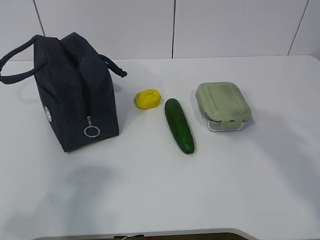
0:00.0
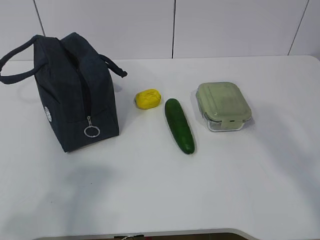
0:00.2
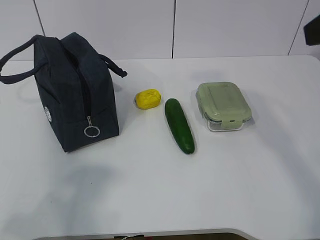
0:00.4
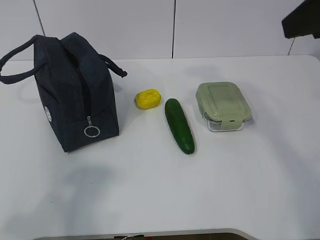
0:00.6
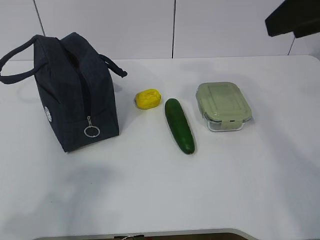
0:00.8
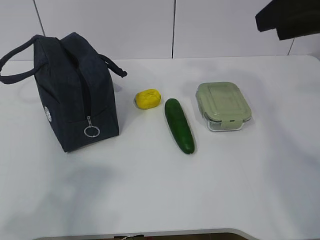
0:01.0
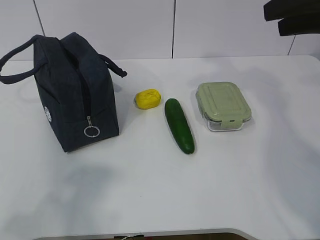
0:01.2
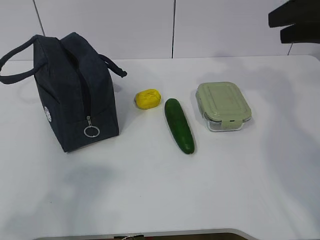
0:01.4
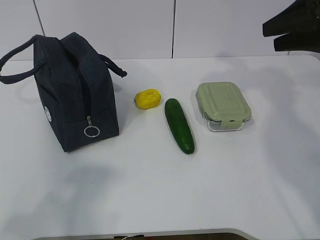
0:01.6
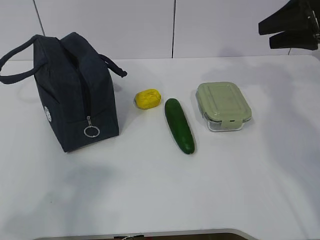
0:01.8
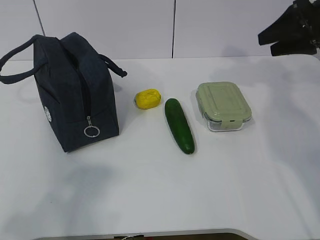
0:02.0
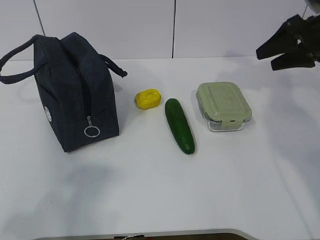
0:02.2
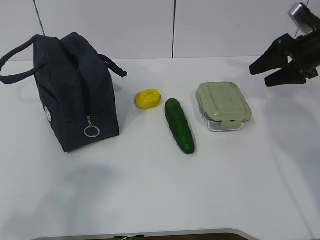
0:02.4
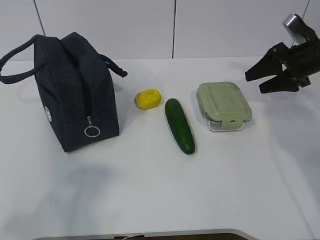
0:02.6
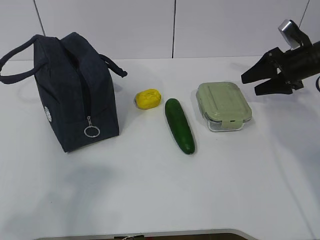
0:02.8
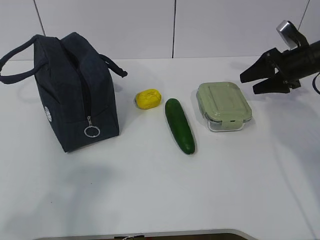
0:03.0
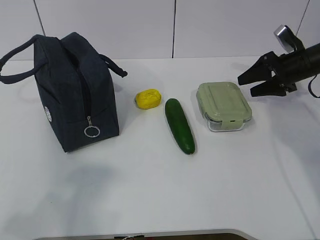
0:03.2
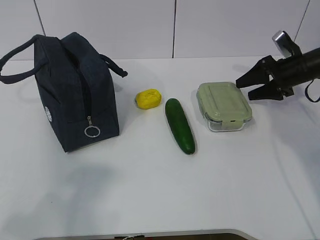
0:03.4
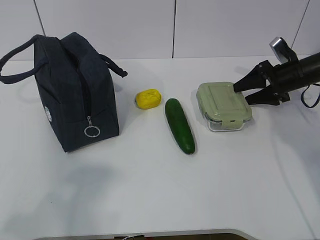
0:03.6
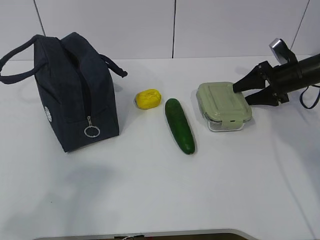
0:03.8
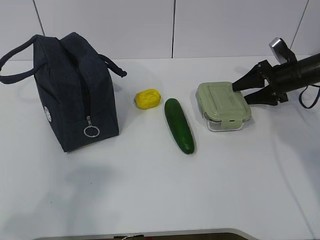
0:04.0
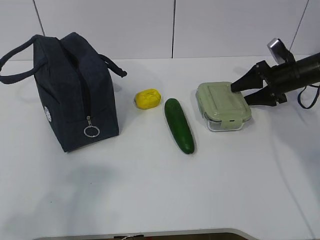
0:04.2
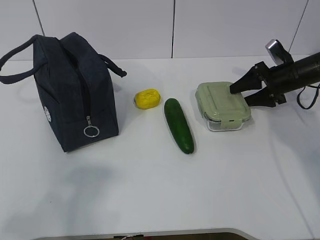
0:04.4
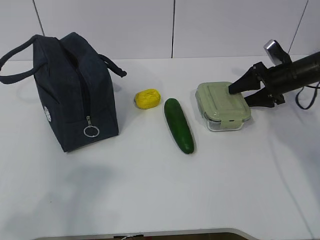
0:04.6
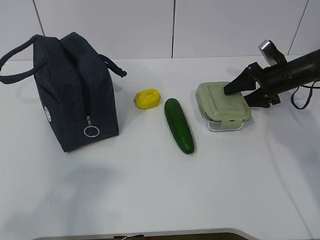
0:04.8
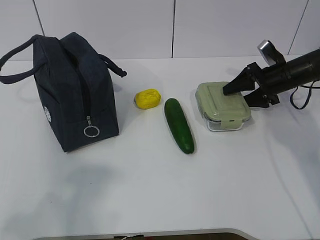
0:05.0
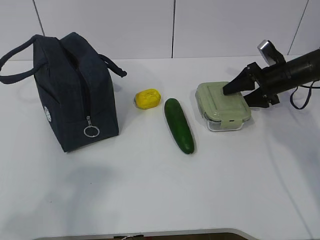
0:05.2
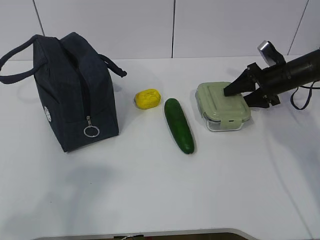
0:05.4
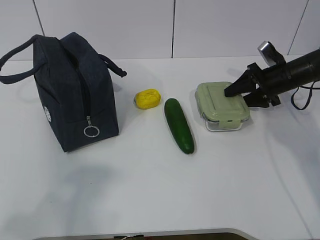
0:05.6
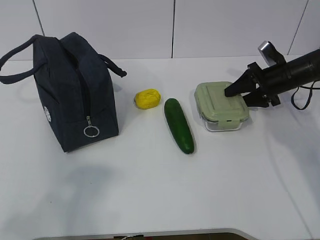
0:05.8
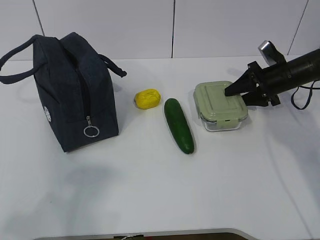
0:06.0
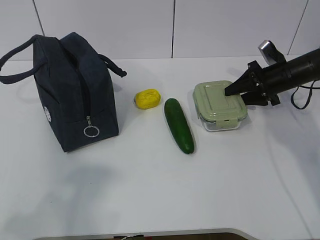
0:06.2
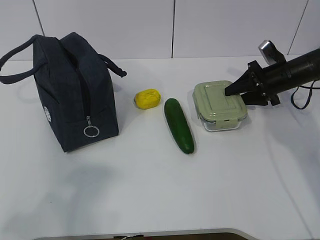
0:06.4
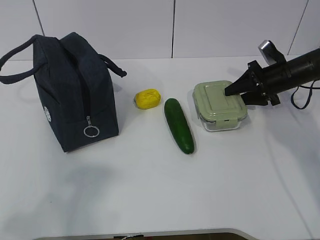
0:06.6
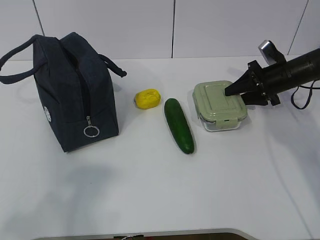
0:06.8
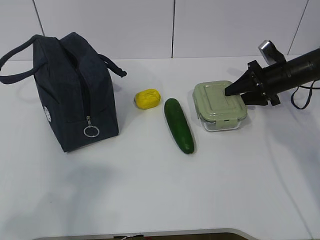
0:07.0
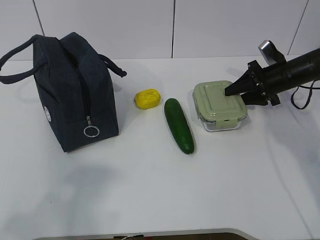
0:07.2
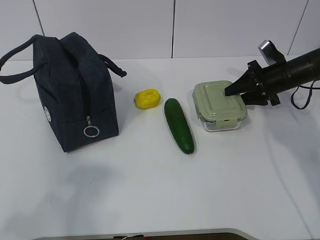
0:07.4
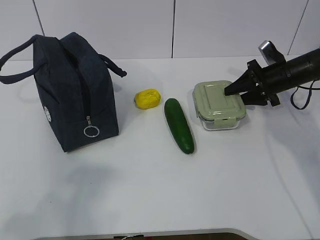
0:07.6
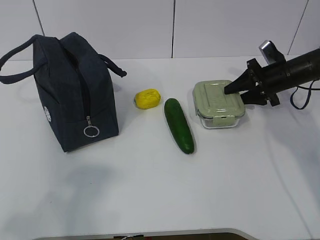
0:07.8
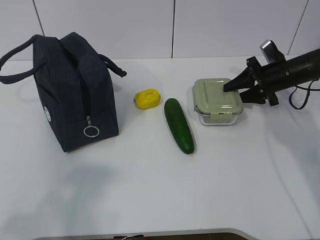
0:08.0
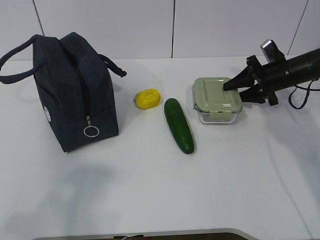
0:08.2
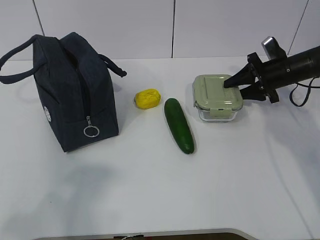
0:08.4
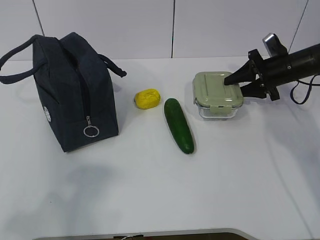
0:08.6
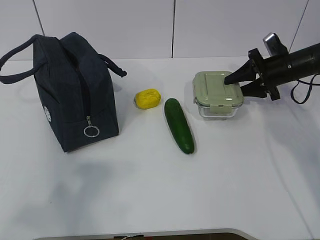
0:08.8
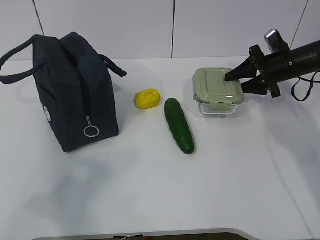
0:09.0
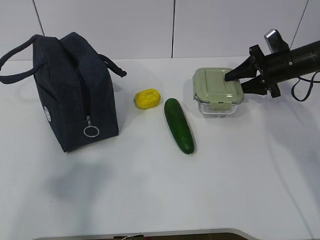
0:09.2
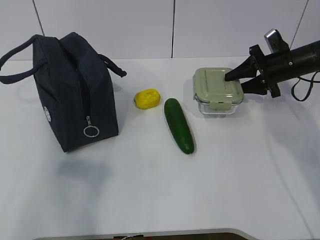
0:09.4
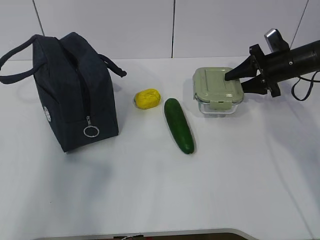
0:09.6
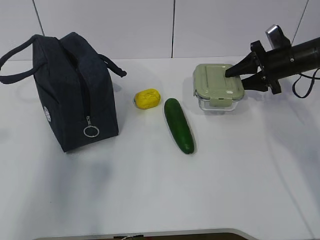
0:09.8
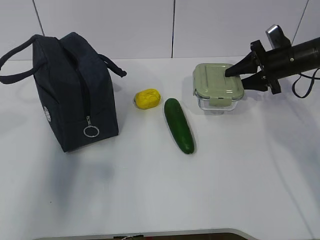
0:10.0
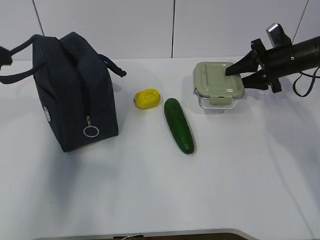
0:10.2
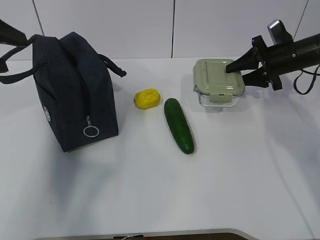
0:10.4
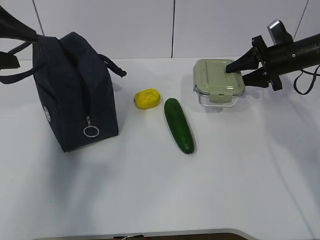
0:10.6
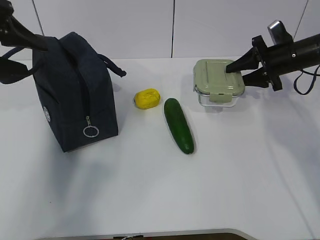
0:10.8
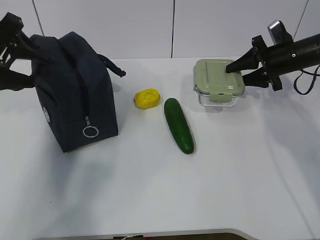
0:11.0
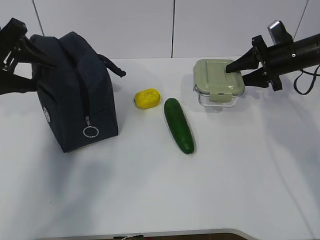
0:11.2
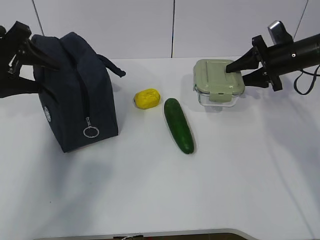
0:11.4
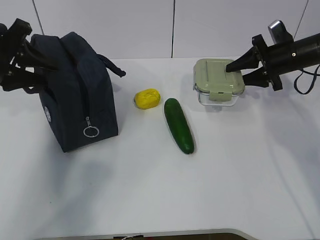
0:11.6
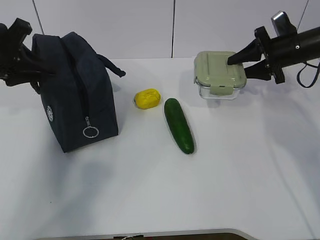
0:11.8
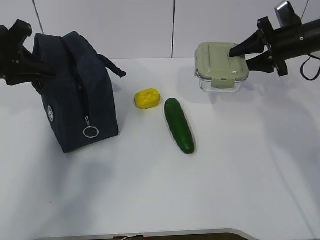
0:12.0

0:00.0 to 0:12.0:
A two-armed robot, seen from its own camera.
Step, 0:00.0 to 0:06.2: Grab the lunch box with your right hand.
Step, 0:06.4 to 0:11.2: Grab the lunch bag with your left hand.
0:00.0 to 0:01.6: The right gripper moves forward, roughly 20 cm.
0:01.6 to 0:03.0: The right gripper moves downward and forward, approximately 15 cm.
0:03.0 to 0:06.0: The grippers make only small movements.
0:06.0 to 0:07.6: Both grippers stay put.
0:07.6 to 0:09.0: The grippers stay close to where they were, moving slightly.
0:09.0 to 0:10.4: The left gripper heads forward, covering some 25 cm, and opens up.
0:10.4 to 0:12.0: The left gripper shifts roughly 10 cm forward and downward, and closes its fingers.

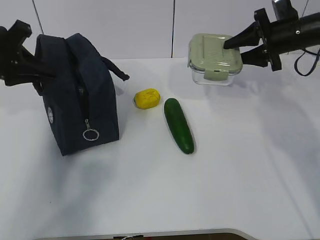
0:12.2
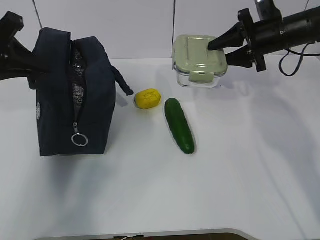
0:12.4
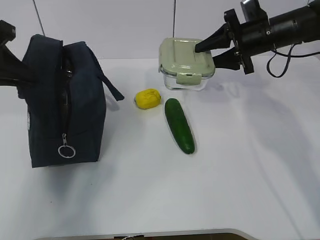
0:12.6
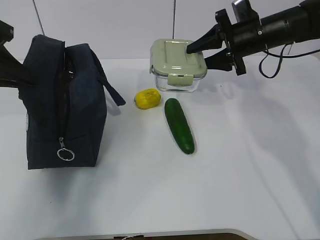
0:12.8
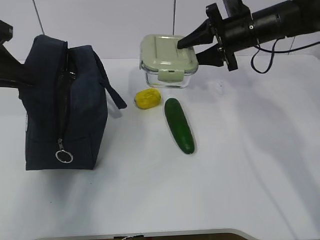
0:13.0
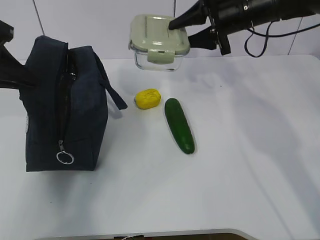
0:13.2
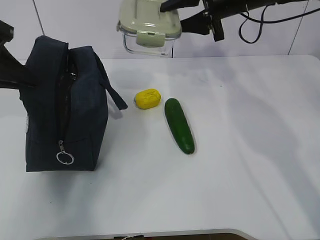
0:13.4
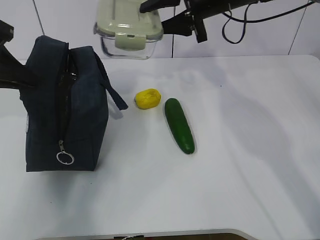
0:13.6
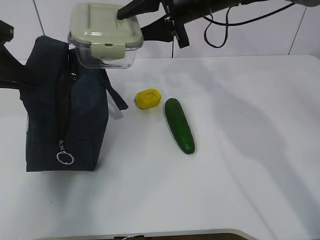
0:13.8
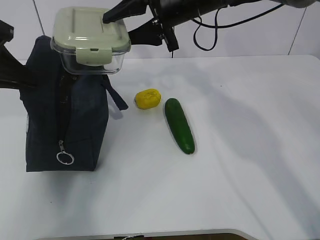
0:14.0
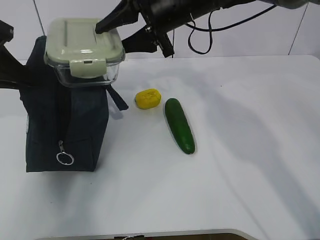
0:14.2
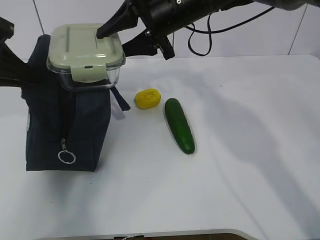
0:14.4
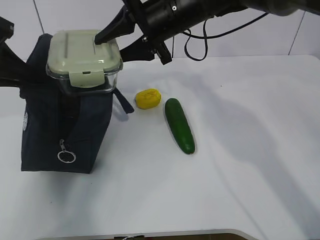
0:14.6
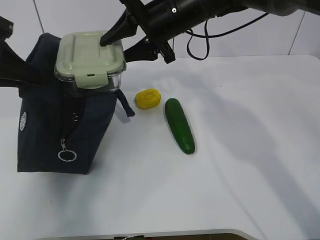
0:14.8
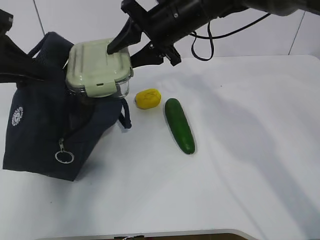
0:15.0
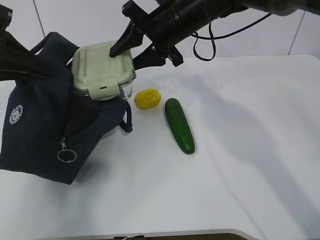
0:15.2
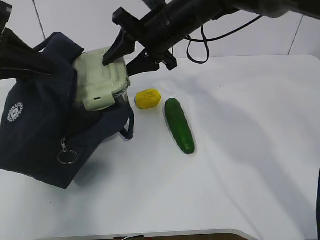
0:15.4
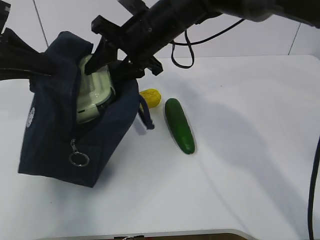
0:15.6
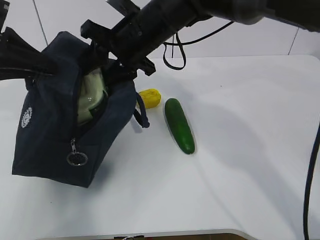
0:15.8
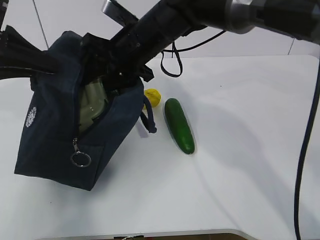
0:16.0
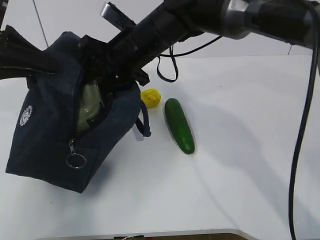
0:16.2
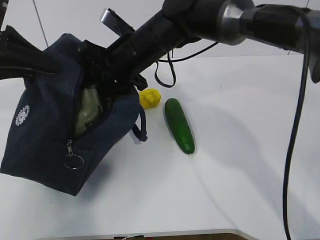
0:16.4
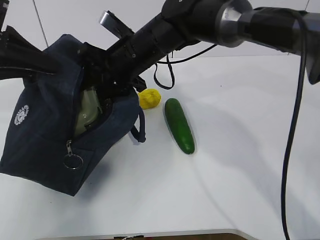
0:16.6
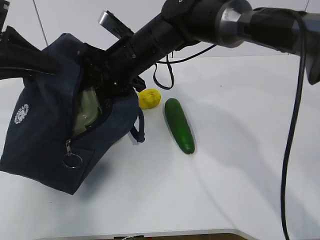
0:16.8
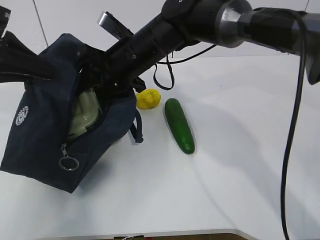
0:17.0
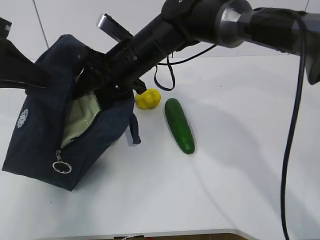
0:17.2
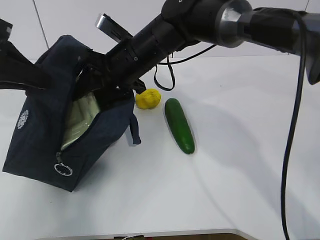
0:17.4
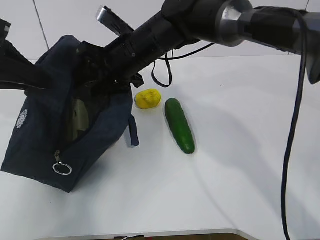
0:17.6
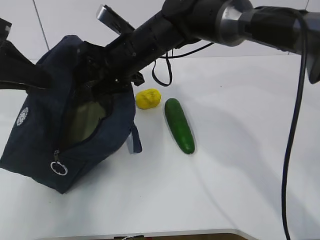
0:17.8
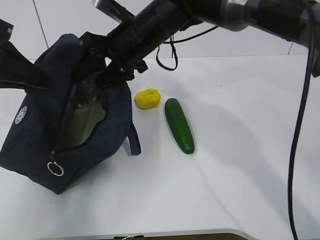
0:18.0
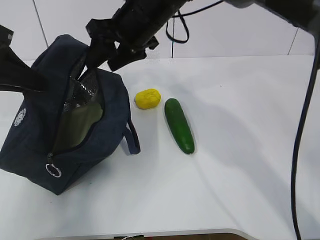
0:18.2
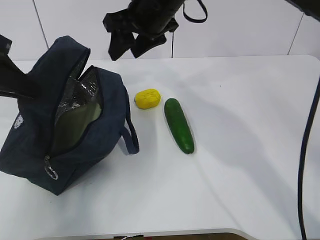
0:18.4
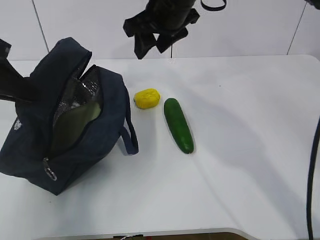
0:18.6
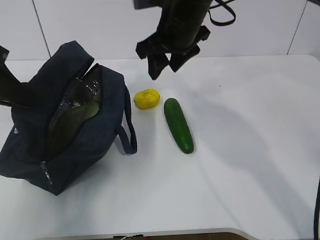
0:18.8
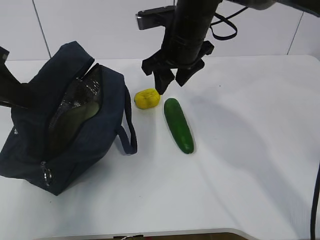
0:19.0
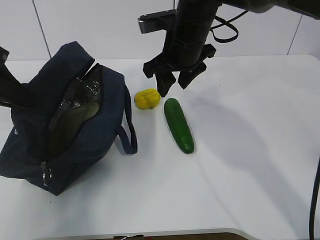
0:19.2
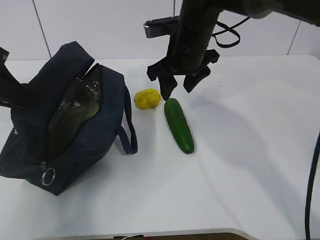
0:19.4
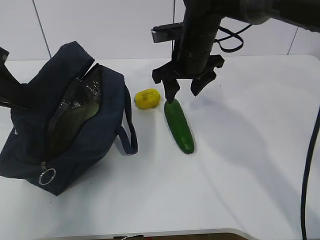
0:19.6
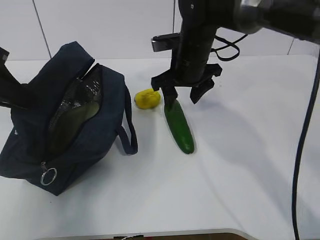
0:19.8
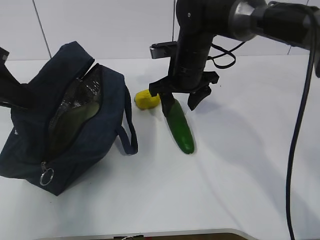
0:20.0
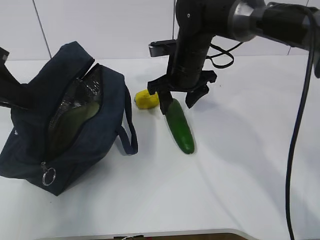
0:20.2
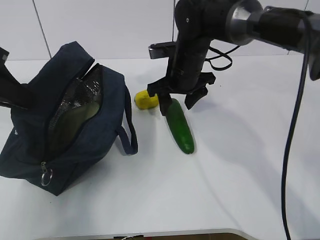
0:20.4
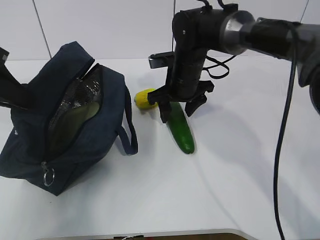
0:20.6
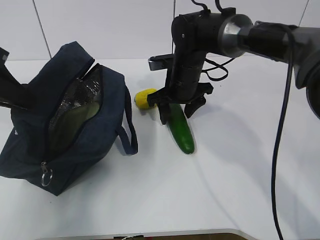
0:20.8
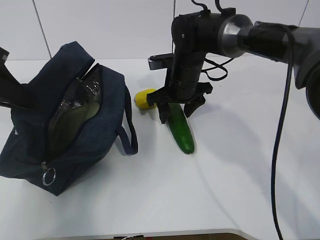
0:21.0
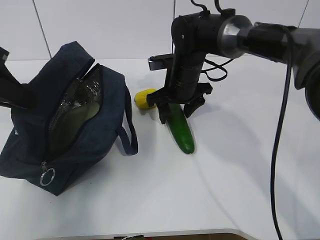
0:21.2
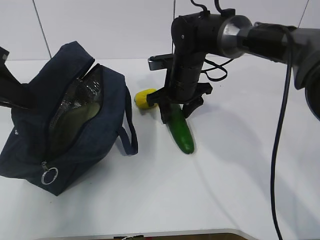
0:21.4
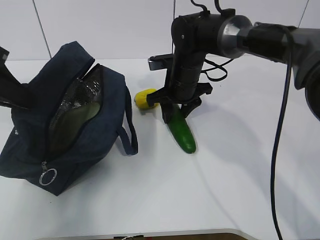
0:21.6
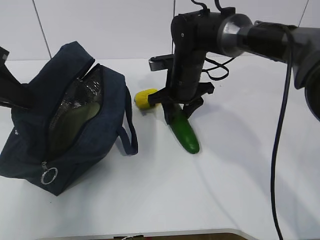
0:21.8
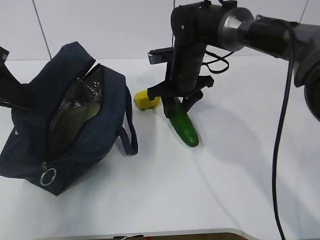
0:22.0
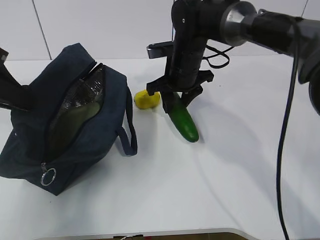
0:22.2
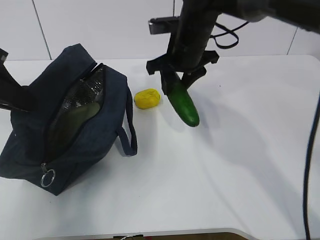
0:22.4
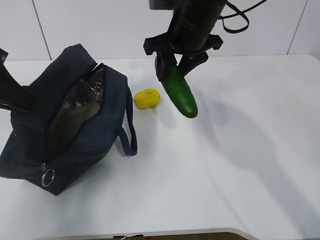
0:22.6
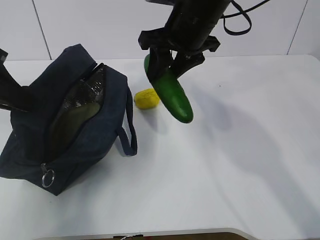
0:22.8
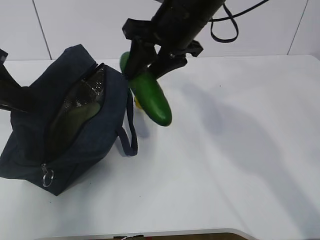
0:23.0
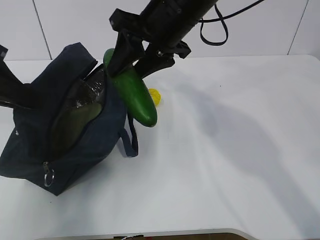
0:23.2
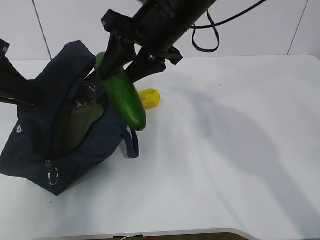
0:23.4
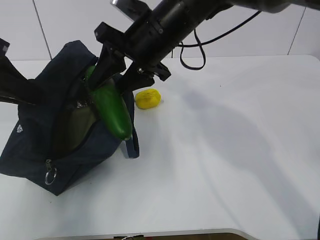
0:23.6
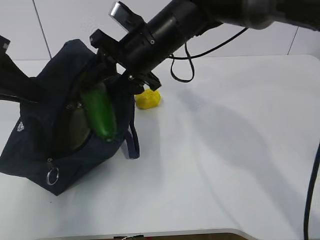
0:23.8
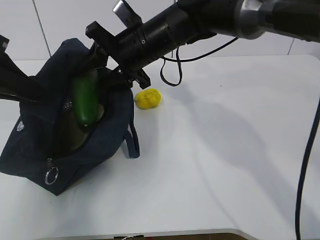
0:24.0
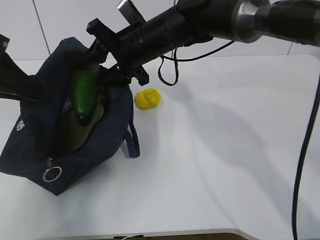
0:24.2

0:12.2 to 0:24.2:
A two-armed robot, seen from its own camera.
Step, 0:12.2 to 0:14.2: Place it into the bag with your right hand.
Step, 0:14.4 to 0:17.4: Grab the cucumber with your right hand.
Step, 0:17.6 to 0:20.6: Place it into the bag with your right hand.
0:12.2 to 0:13.8: The right gripper moves to the left, roughly 20 cm.
0:13.8 to 0:15.2: The grippers move only a little.
0:15.2 to 0:16.6: The right gripper travels to the left by about 5 cm.
0:16.6 to 0:18.2: The right gripper goes approximately 5 cm upward.
0:18.2 to 0:19.8: The right gripper heads to the right and downward, covering roughly 10 cm.
0:19.8 to 0:21.2: The right gripper shifts about 5 cm downward.
0:21.2 to 0:22.6: The right gripper shifts about 10 cm upward.
0:22.6 to 0:24.2: The right gripper travels to the left by some 5 cm.
